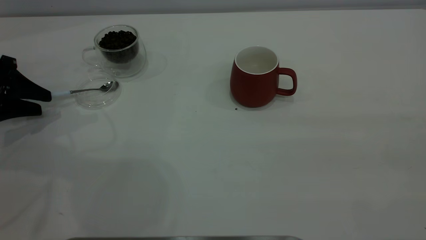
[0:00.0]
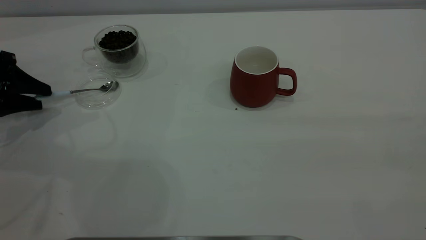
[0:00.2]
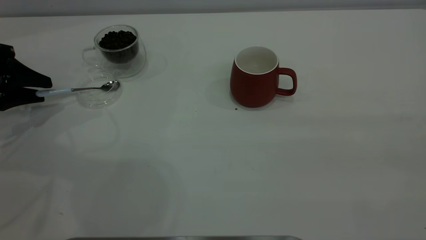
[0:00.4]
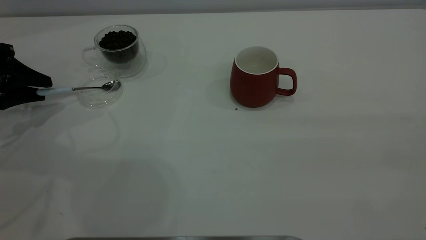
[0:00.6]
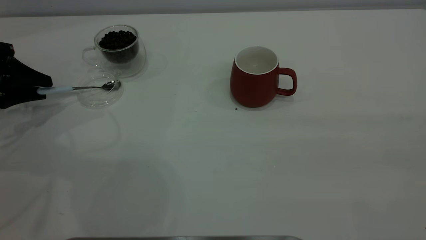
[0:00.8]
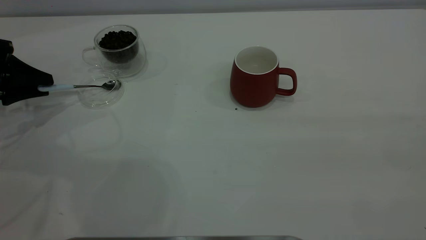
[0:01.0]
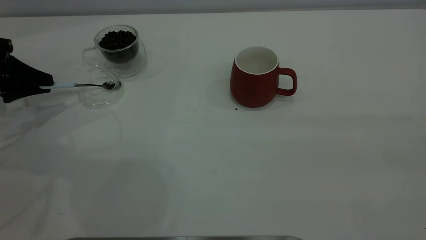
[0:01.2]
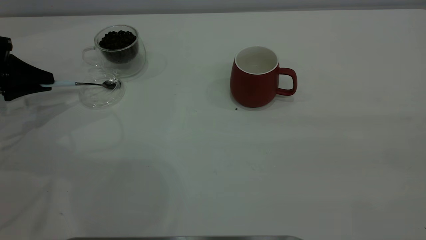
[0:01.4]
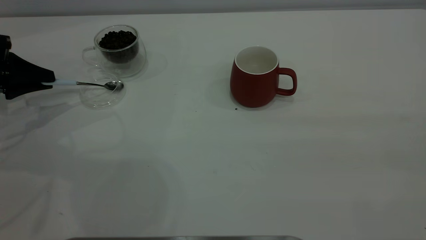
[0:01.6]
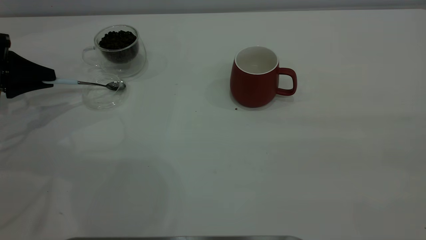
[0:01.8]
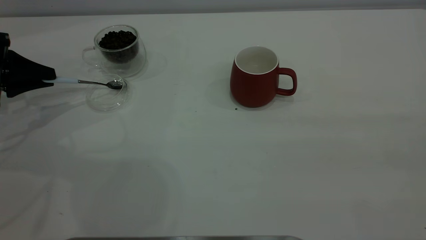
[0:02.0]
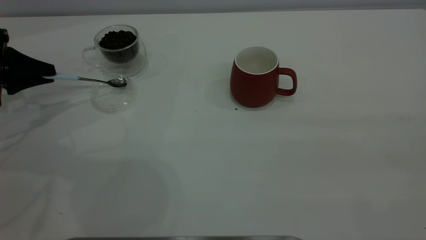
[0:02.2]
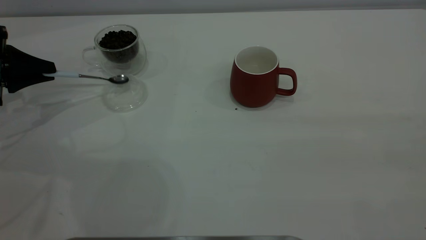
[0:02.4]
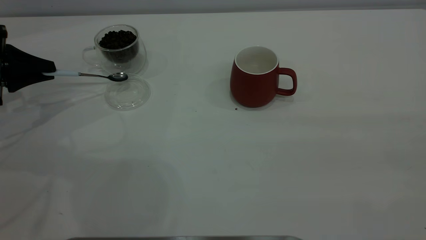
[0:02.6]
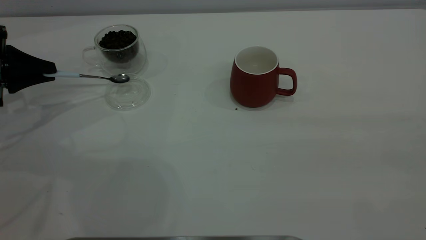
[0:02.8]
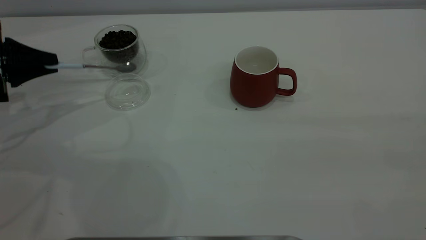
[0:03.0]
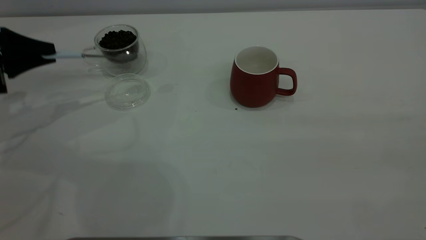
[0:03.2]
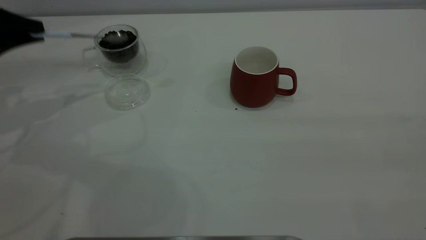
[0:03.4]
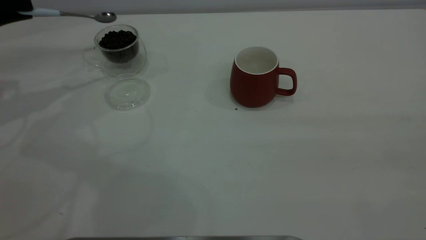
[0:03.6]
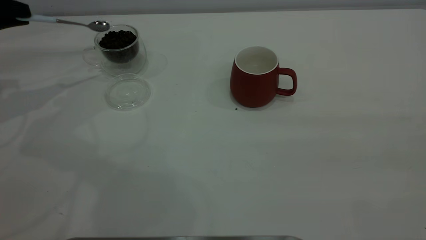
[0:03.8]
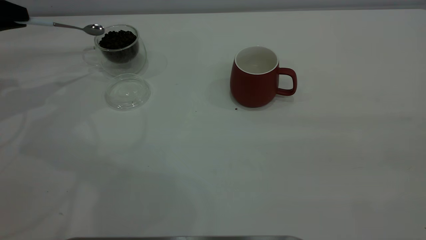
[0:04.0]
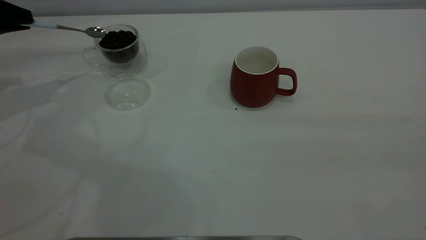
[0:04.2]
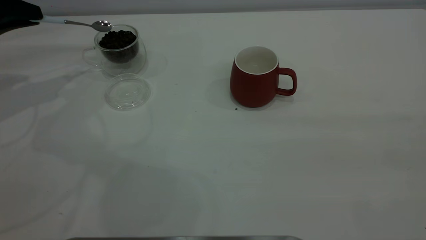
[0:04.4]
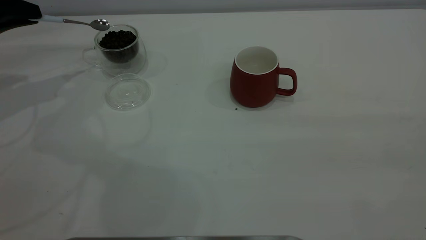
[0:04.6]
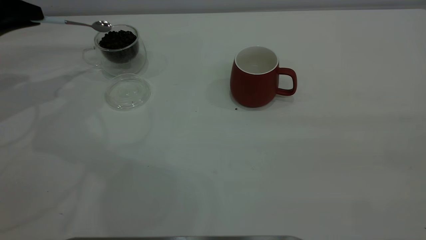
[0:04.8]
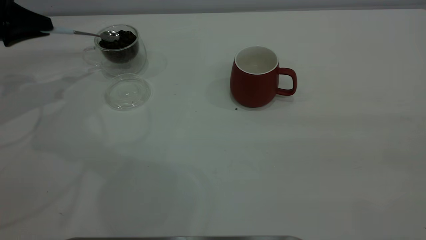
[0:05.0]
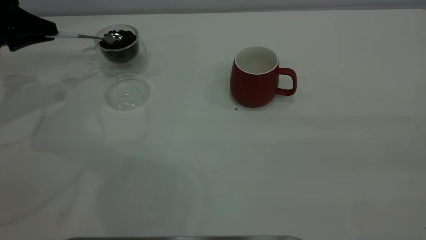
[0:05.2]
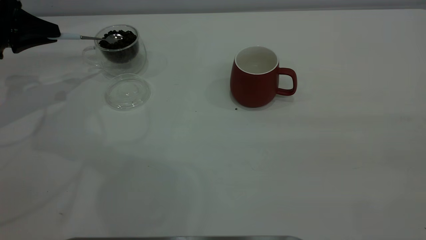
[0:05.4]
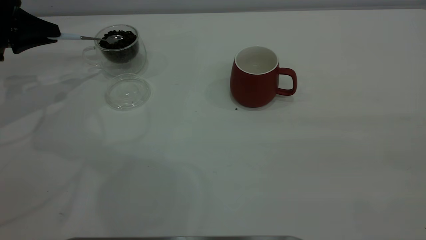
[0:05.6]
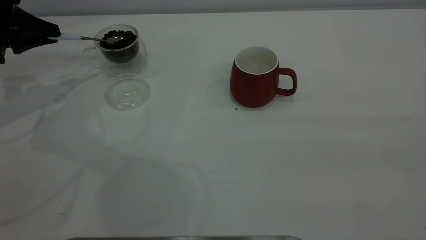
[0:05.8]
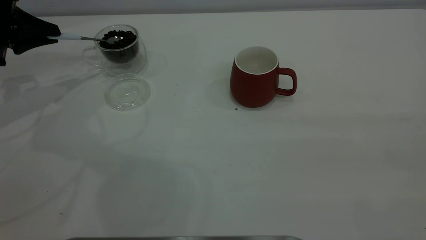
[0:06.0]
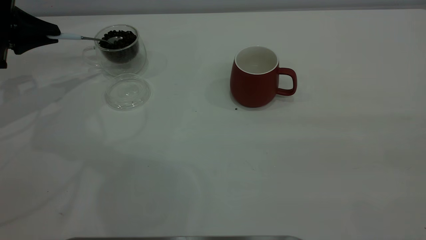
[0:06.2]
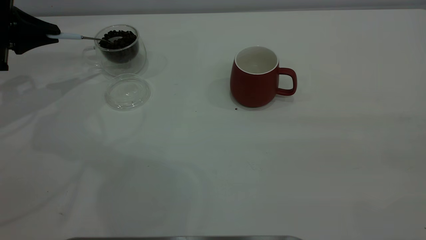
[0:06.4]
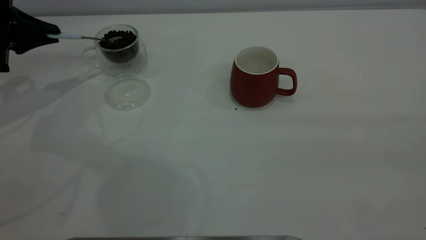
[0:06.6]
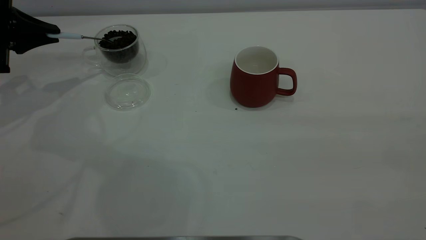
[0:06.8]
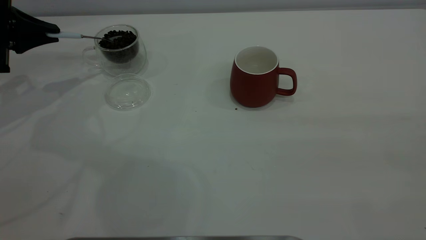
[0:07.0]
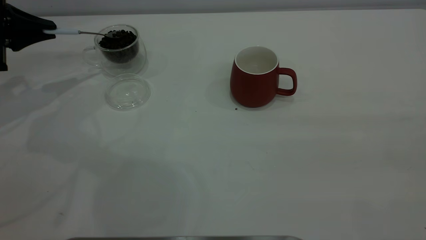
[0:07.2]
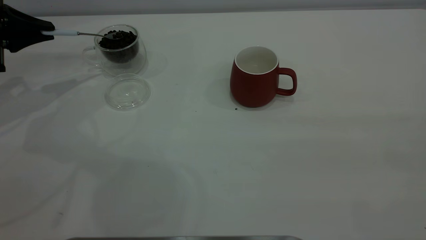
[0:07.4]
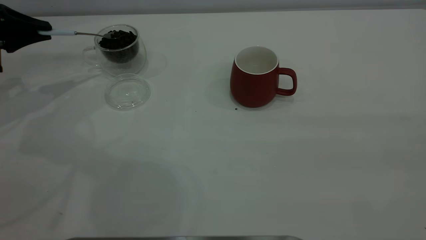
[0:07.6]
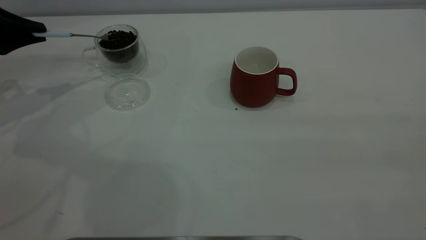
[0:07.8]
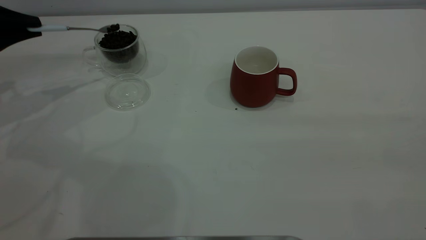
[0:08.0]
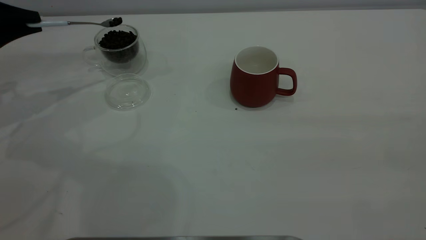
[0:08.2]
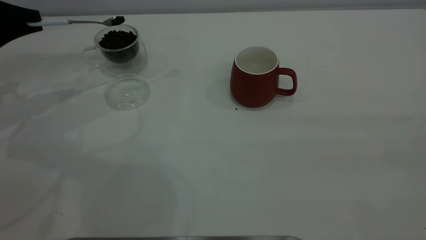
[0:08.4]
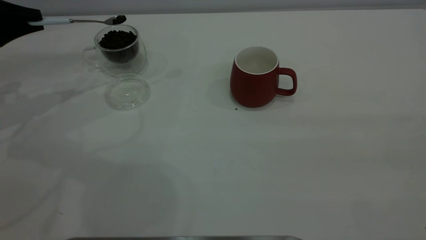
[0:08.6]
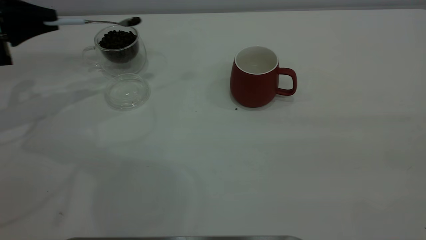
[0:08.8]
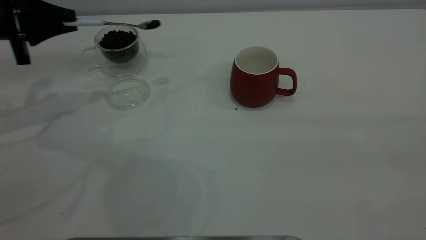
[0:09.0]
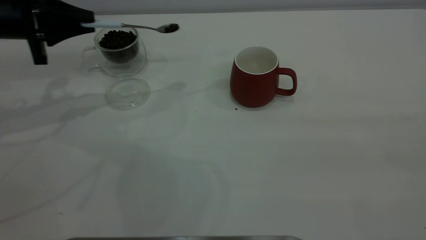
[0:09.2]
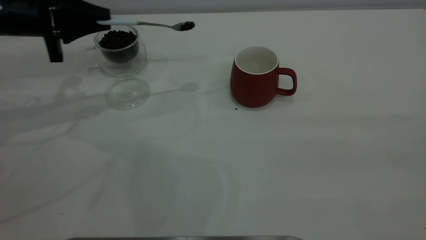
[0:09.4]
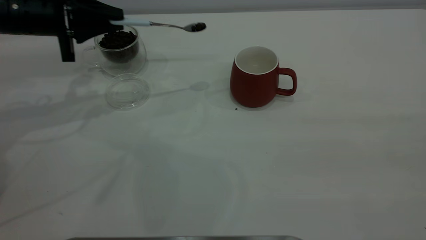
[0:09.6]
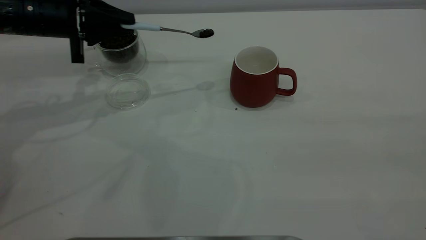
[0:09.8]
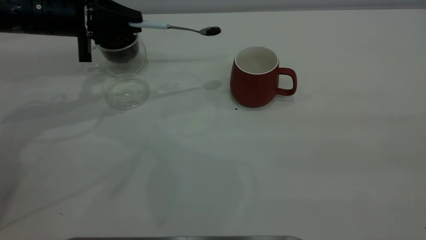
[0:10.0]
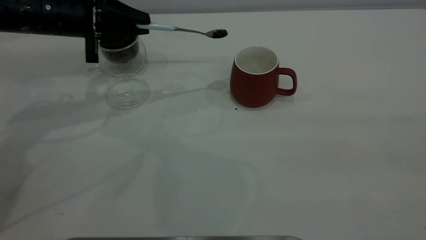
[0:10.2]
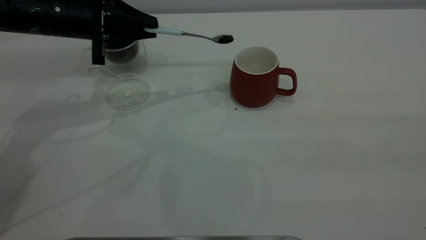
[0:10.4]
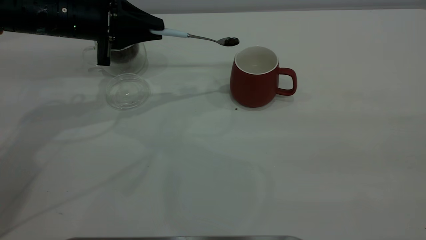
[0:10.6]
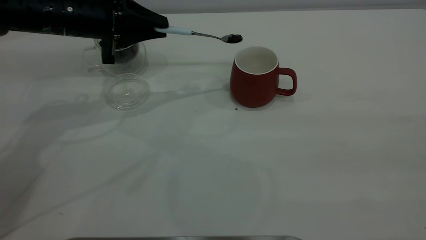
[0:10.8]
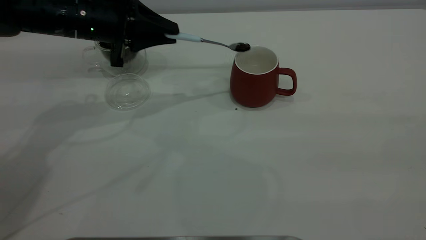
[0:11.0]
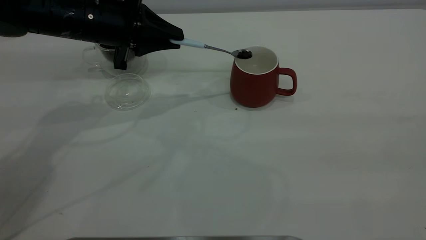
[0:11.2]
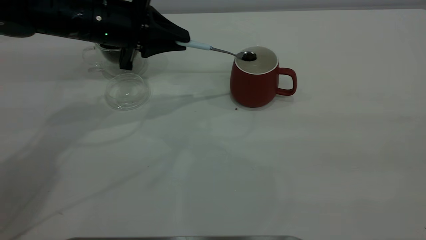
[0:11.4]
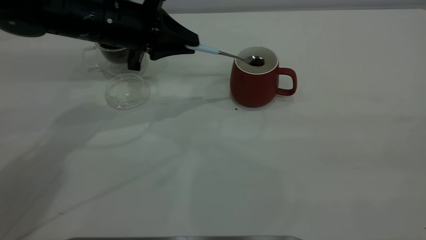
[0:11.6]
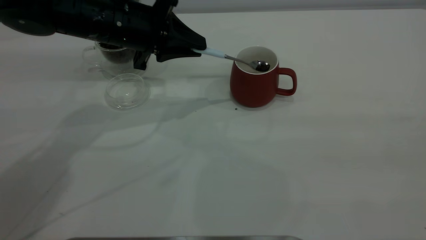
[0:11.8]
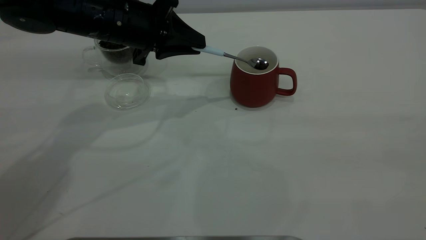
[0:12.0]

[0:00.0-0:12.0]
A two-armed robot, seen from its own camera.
Task of the whole recording: the right gripper place the red cup in the center of the table, the left gripper take the blue spoon from the cup lid and scoop out the coffee beans from the coffee cup and put them into the red cup, the left gripper put the spoon back into the cup lid.
Step, 0:00.0 to 0:03.0: Pick up the spoon.
0:00.0 to 0:01.6: The left gripper closes.
0:01.6 to 0:03.0: The grippers make only small movements.
0:03.0 to 0:04.4: The left gripper moves upward, about 5 cm.
0:04.4 to 0:06.0: The grippers stay close to where they were, moving slightly.
0:06.0 to 0:07.6: The grippers stay close to where they were, moving slightly.
0:07.6 to 0:09.0: The left gripper goes approximately 5 cm to the right.
0:09.0 to 0:10.4: The left gripper is displaced to the right by about 10 cm.
0:10.4 to 0:12.0: The left gripper travels to the right by roughly 5 cm.

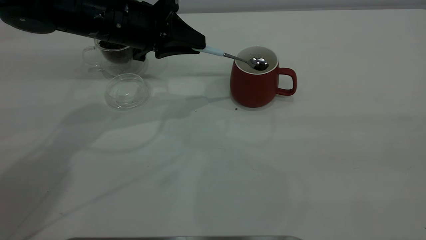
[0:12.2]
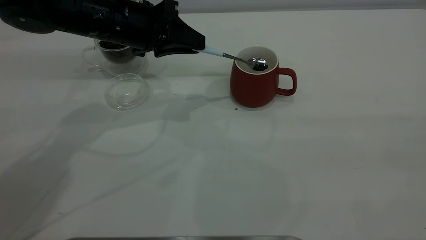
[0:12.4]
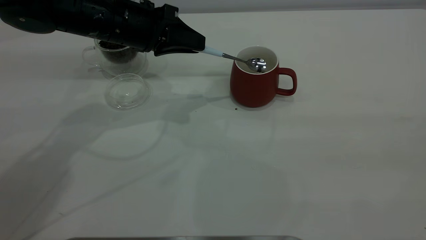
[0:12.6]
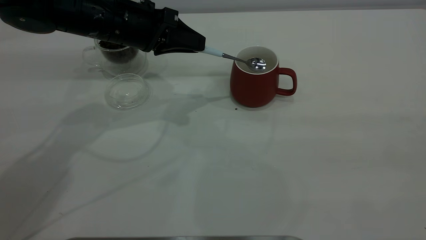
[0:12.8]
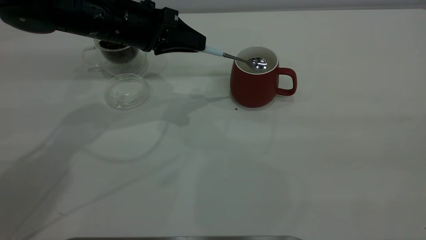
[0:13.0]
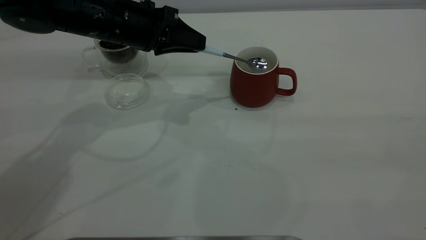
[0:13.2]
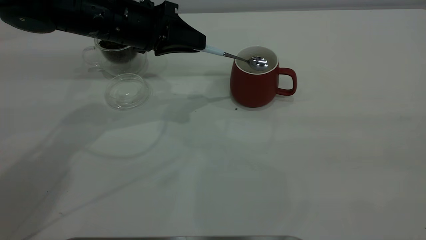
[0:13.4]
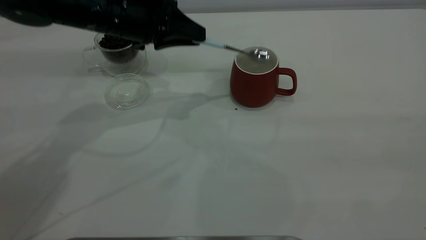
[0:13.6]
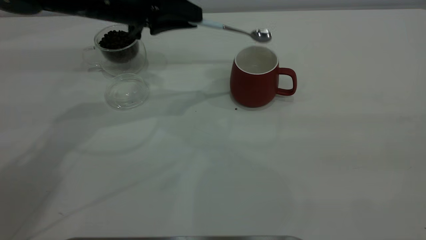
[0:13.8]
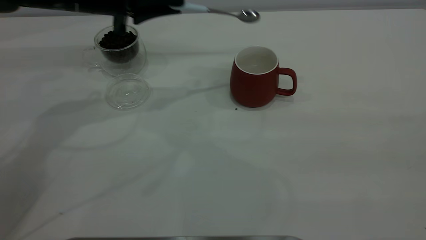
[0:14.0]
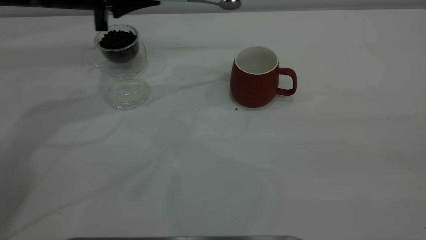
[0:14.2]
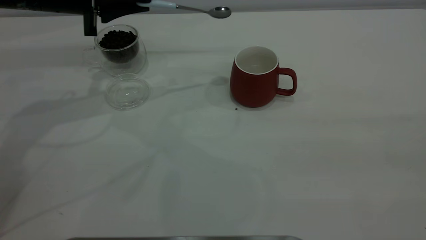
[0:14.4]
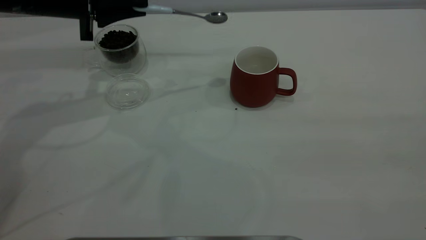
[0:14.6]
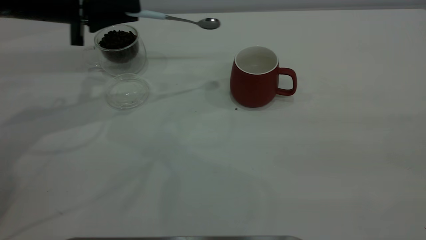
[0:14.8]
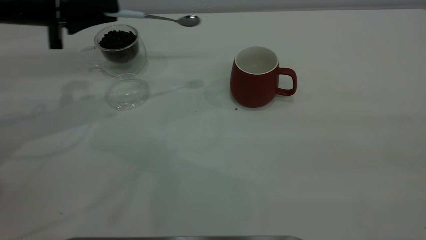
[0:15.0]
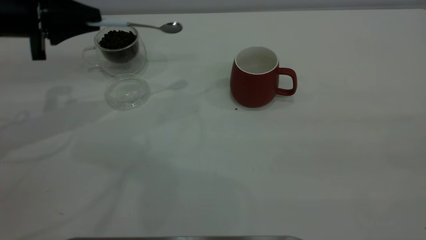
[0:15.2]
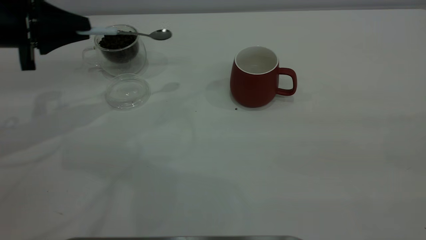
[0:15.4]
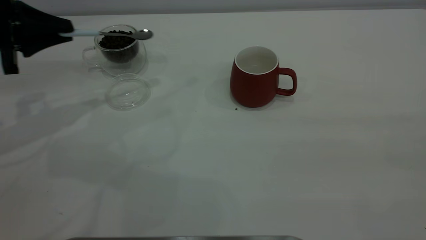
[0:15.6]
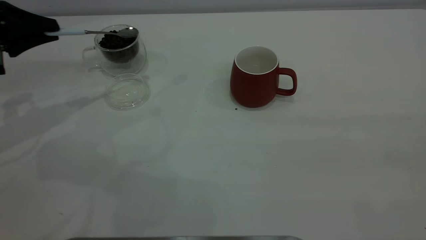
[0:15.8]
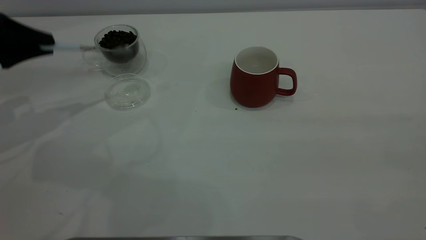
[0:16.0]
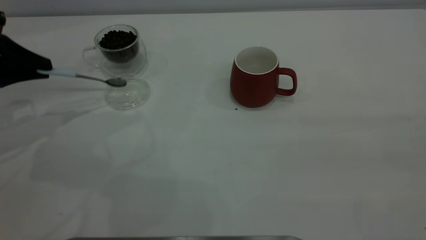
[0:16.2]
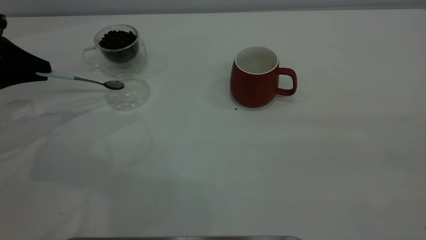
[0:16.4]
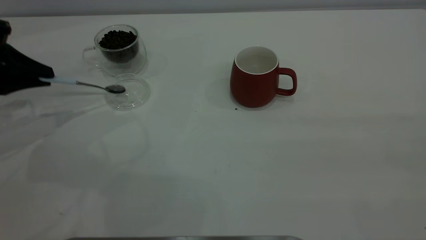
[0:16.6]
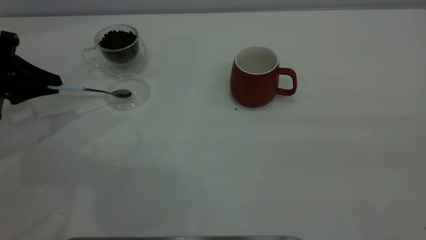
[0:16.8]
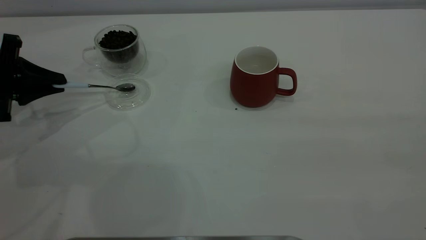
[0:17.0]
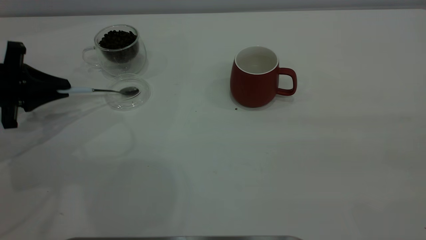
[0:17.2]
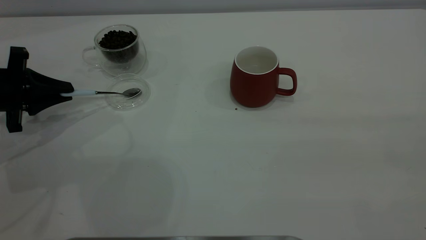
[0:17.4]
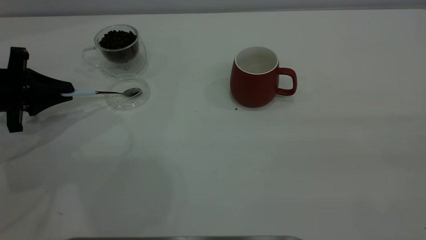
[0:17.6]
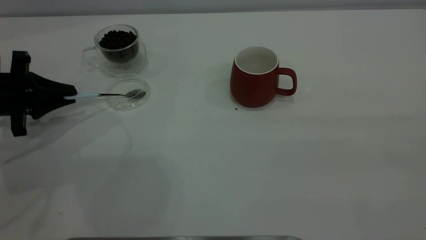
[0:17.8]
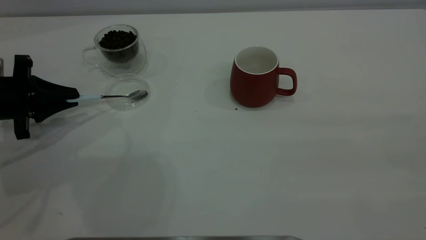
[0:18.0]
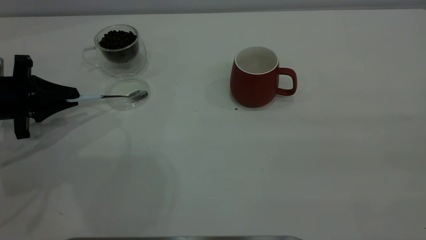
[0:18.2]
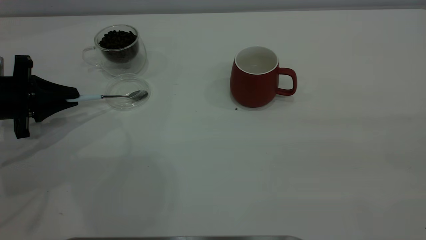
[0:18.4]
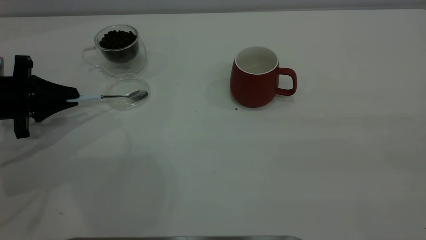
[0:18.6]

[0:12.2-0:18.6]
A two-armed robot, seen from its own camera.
Task of the whole recording: the right gripper place the red cup in the center of the table, the left gripper take the blue spoon from the cup lid and scoop out the coffee beans from the coffee cup and put them into the red cup, the left gripper put the spoon back into the cup lid.
0:12.2 to 0:13.8: The grippers move only a little.
0:13.8 to 0:15.4: The left gripper travels to the left by about 15 cm.
0:15.4 to 0:17.0: The left gripper shifts about 5 cm downward.
0:17.0 to 0:18.6: The grippers move only a little.
